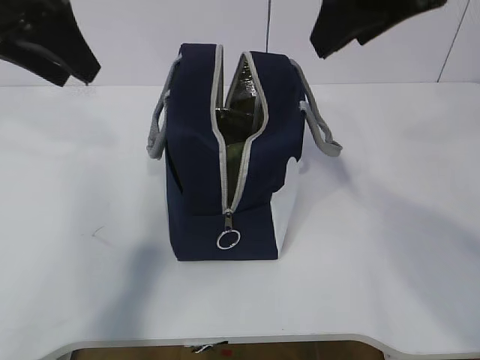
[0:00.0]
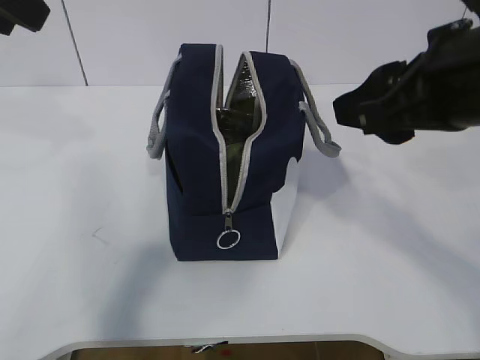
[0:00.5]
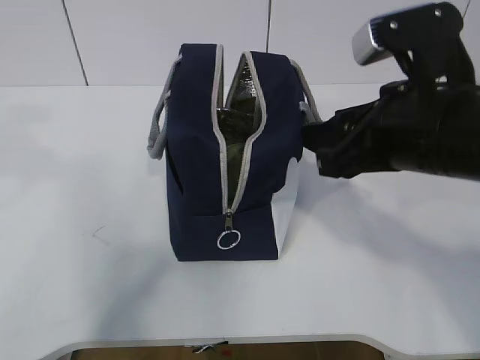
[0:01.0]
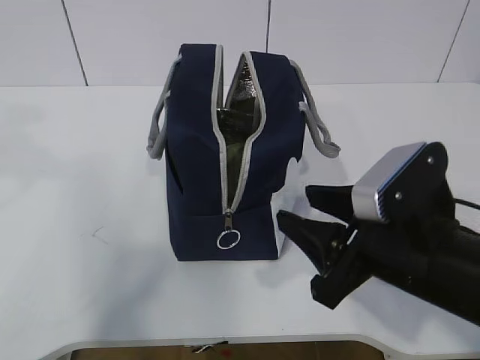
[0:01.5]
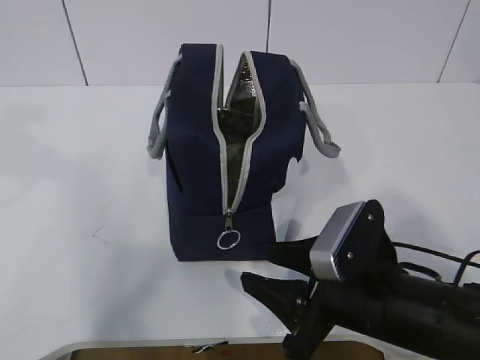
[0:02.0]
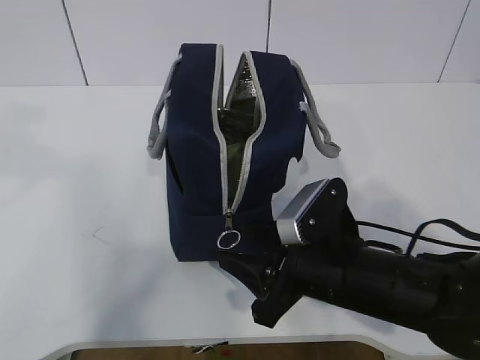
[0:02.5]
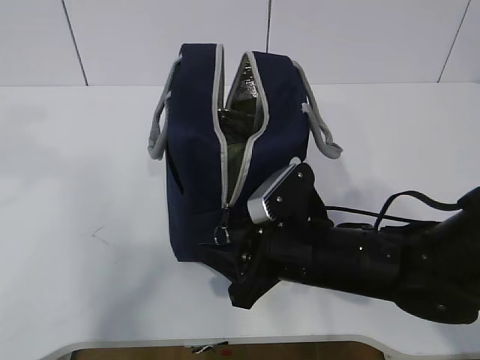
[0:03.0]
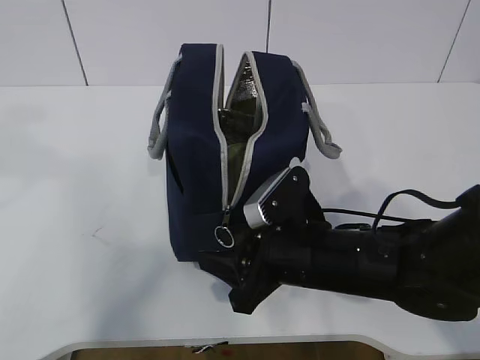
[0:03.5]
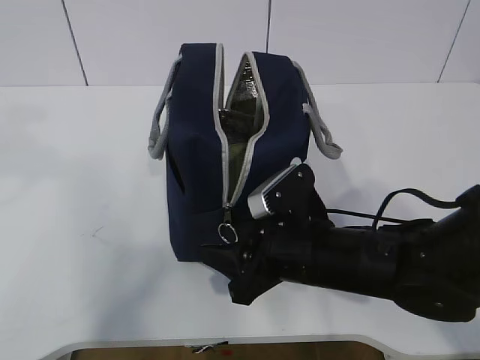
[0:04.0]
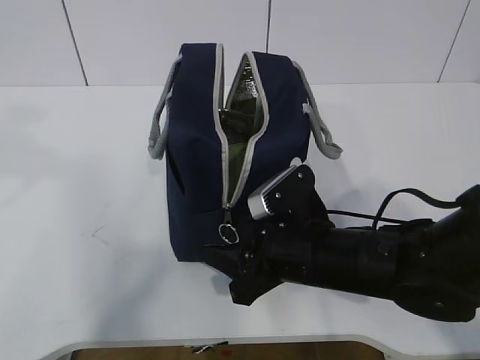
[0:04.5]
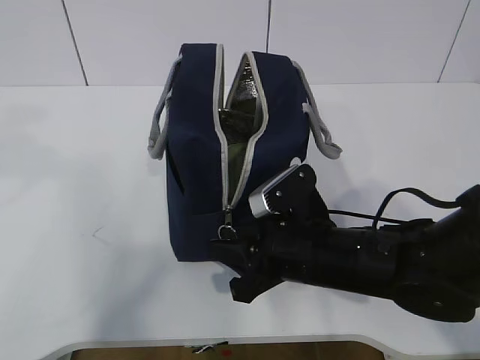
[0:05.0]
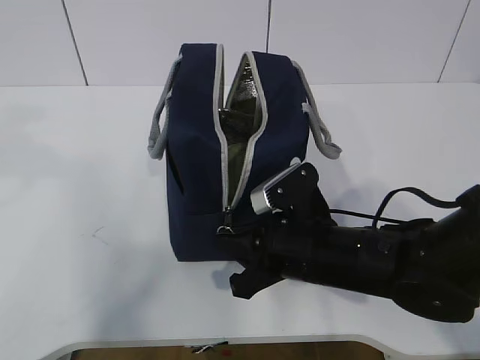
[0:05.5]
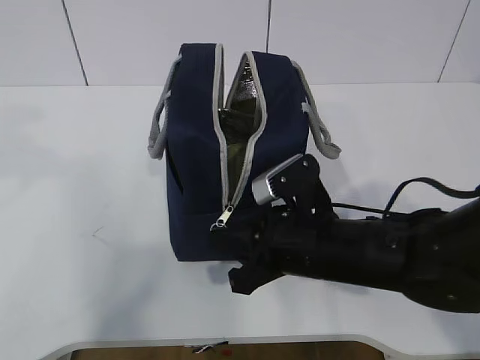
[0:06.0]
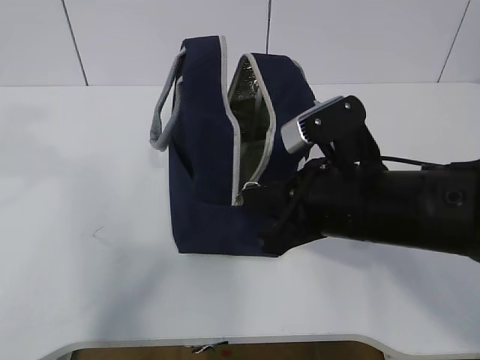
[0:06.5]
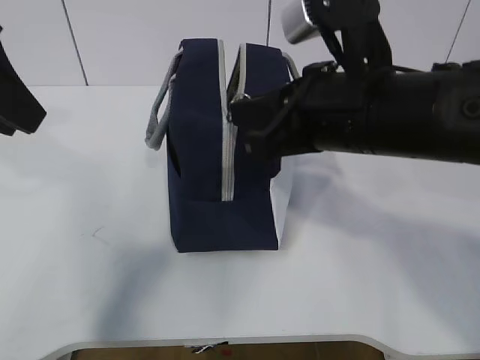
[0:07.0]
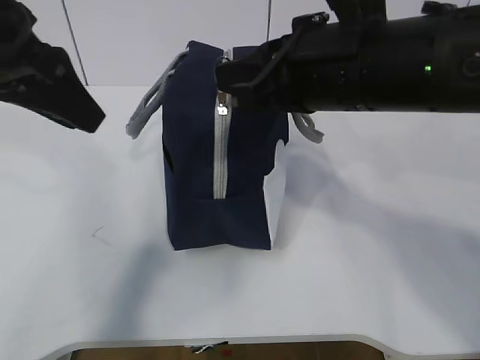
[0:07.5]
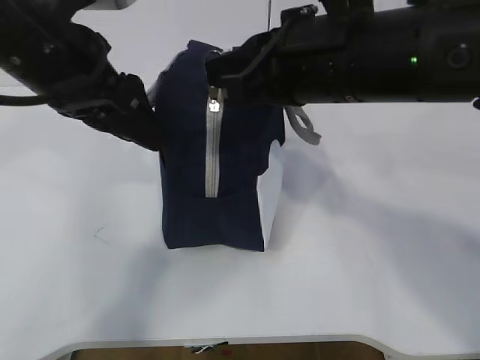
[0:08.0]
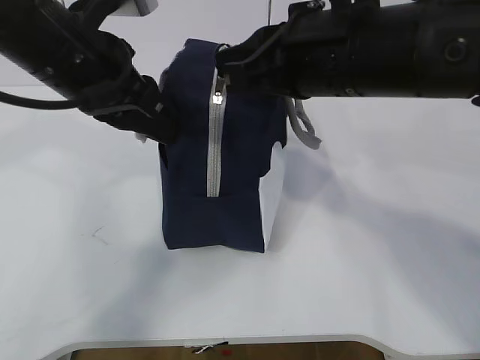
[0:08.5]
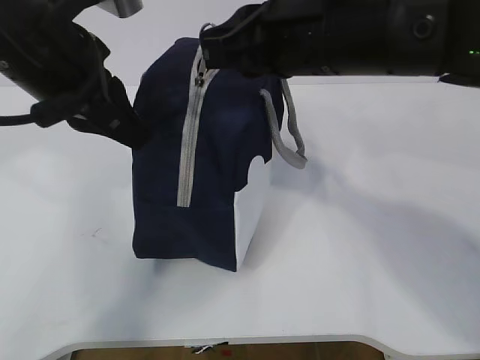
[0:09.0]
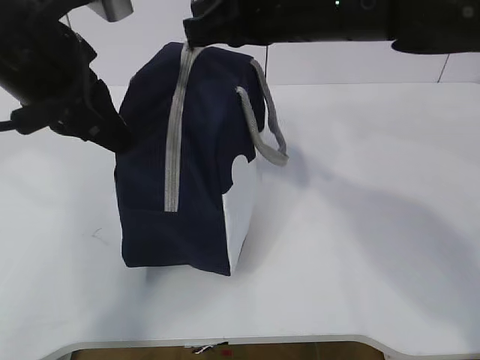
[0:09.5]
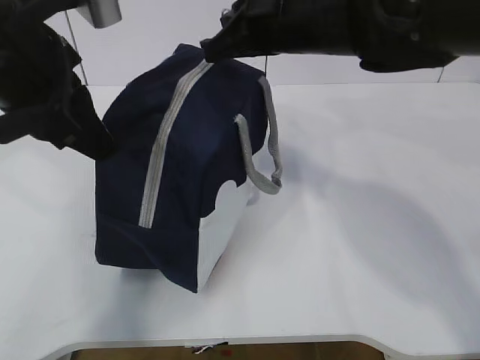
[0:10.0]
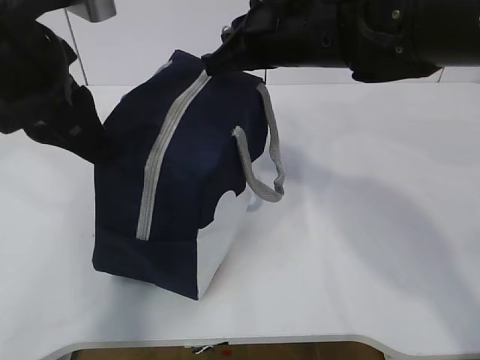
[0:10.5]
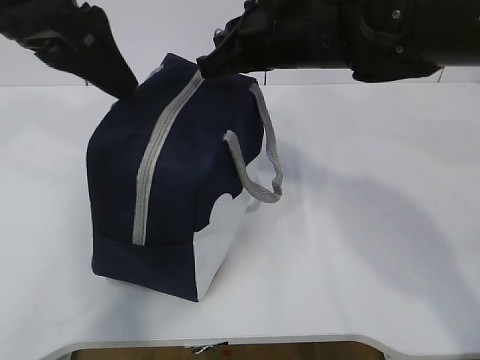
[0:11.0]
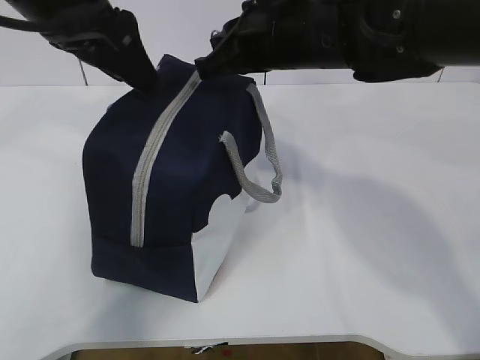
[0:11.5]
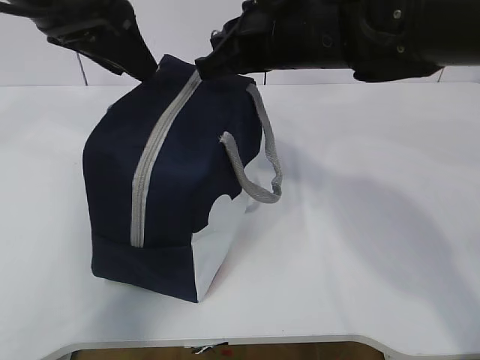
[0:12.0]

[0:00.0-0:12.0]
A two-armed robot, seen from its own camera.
Step, 0:01.0 to 0:05.5: Pull the zipper with your right hand.
Step, 0:06.0 to 0:07.5: Grab the lunch bag with your left hand.
0:00.0 to 0:02.0: The right gripper shifts approximately 30 cm downward, while the left gripper goes roughly 10 cm backward.
0:02.0 to 0:04.0: The right gripper moves forward, some 5 cm.
0:04.0 to 0:06.0: The right gripper closes up.
0:06.0 to 0:08.0: The left gripper shifts some 15 cm downward, forward and to the right. Meanwhile the right gripper shifts about 20 cm upward.
0:08.0 to 0:10.0: The right gripper heads forward, covering approximately 10 cm, while the left gripper closes its fingers.
0:10.0 to 0:12.0: The left gripper shifts approximately 5 cm forward, and opens.

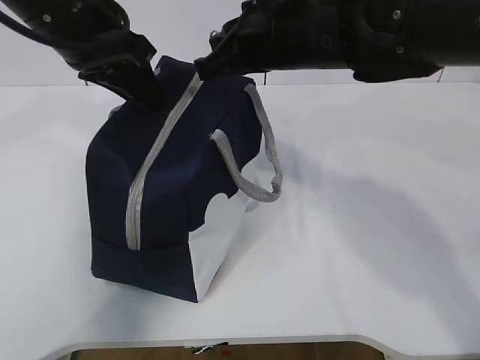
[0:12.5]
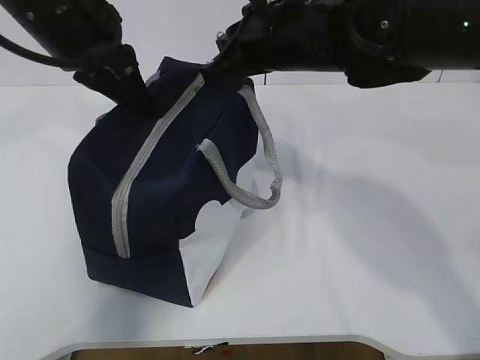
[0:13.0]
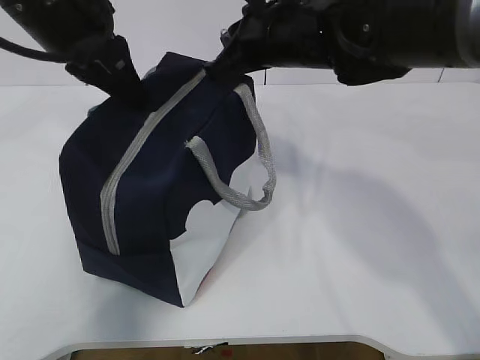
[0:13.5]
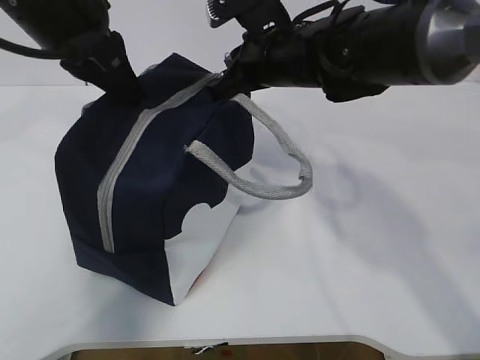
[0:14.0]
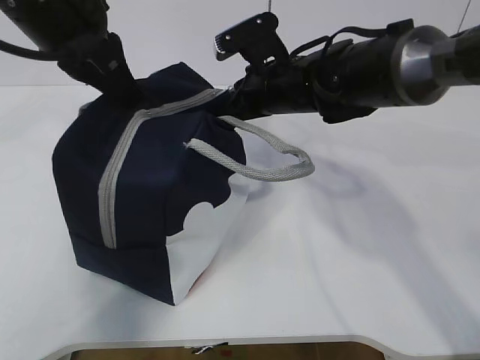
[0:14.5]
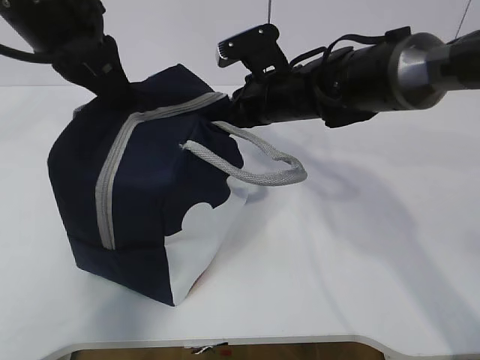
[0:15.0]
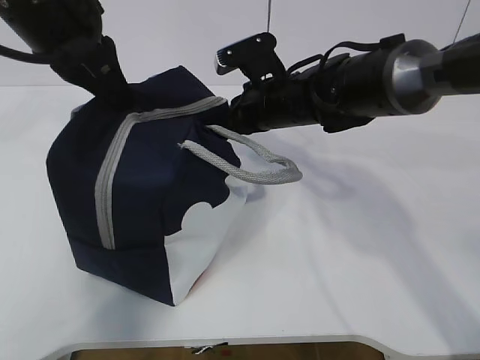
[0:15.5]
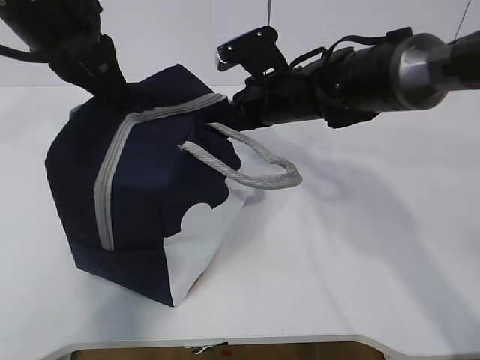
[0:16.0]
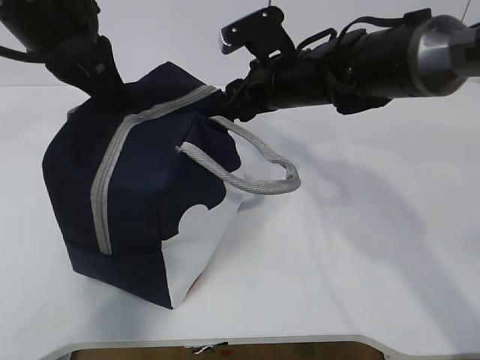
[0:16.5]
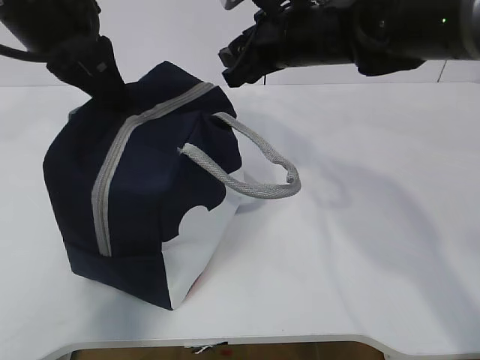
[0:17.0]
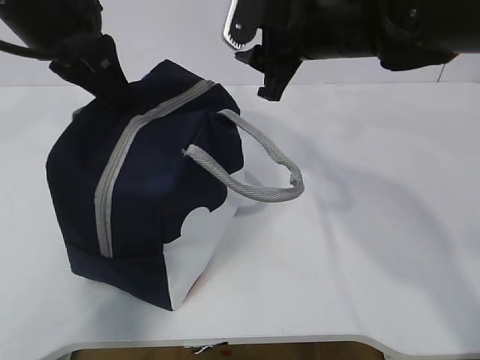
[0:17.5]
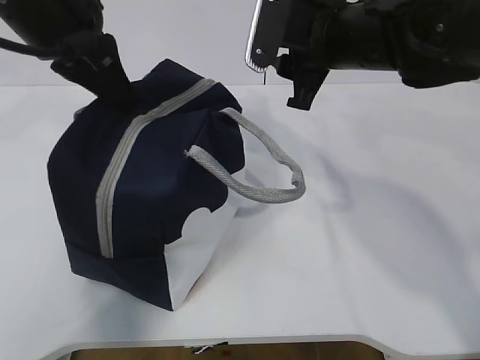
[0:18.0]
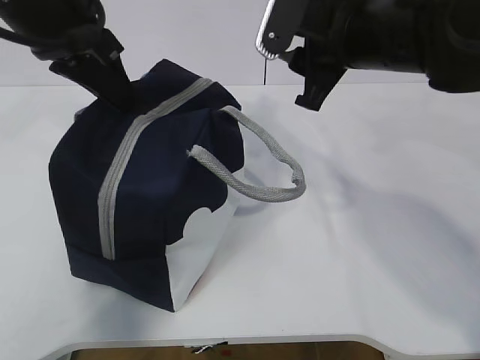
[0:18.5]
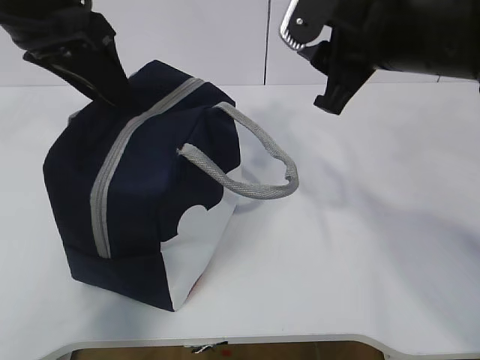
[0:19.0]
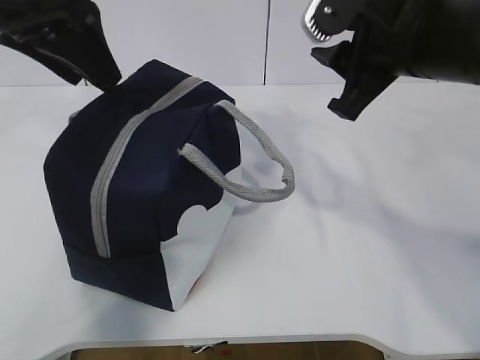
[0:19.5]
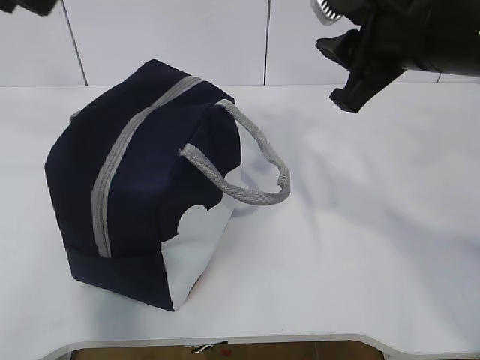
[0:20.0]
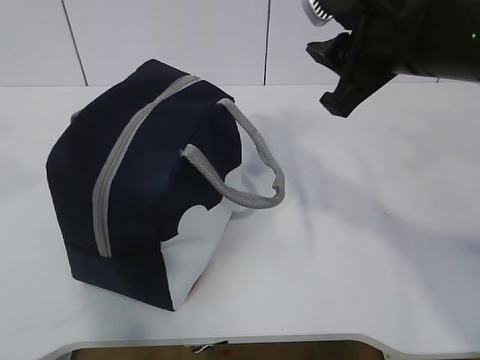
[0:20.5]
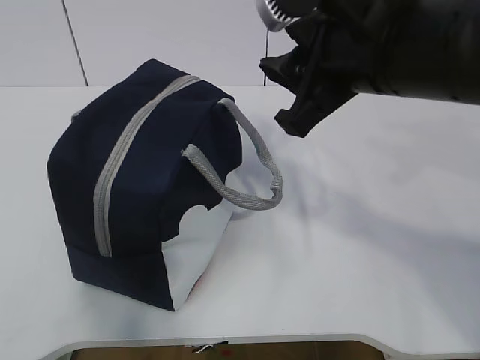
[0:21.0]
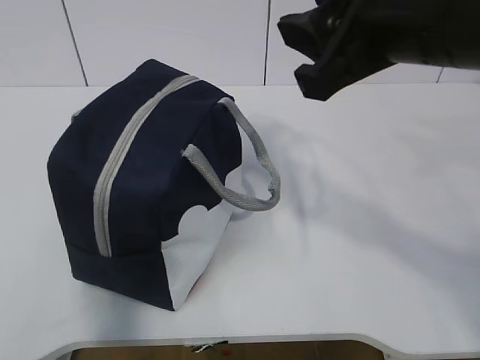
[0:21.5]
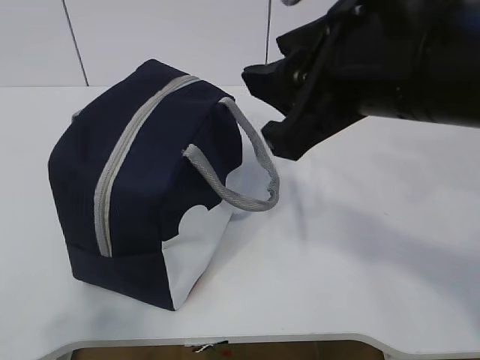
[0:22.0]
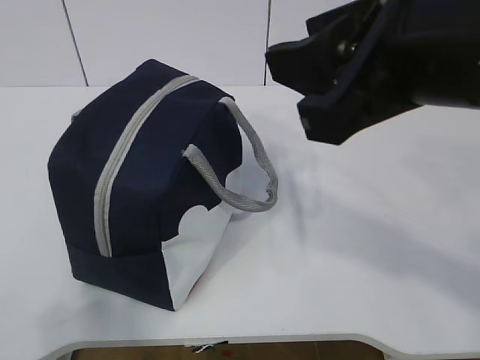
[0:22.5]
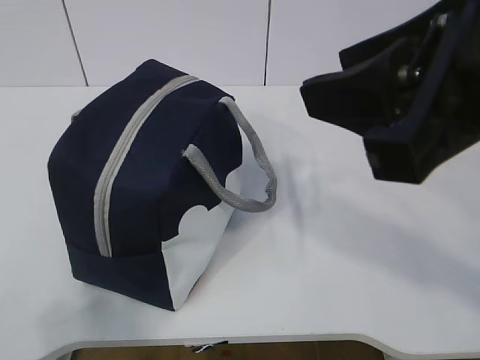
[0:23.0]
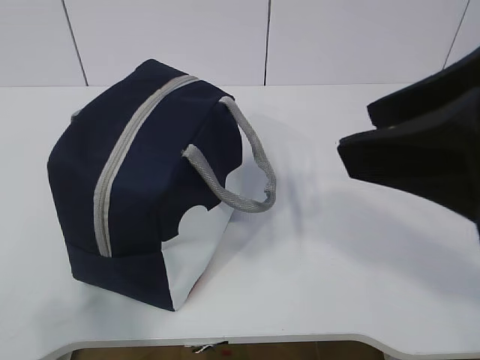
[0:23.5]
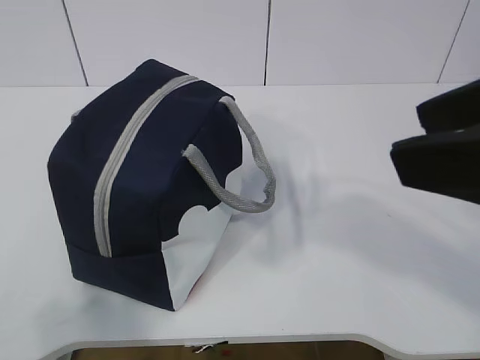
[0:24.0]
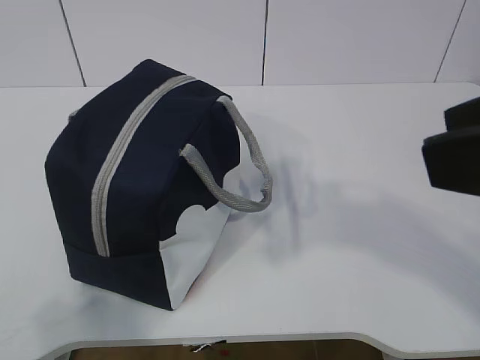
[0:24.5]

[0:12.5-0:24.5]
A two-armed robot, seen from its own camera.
0:12.5 to 0:14.5: The right gripper goes roughly 10 cm downward and forward. Meanwhile the left gripper closes.
0:14.5 to 0:16.5: The right gripper opens.
0:16.5 to 0:18.5: The right gripper shifts about 10 cm upward and backward.
0:18.5 to 0:20.5: The left gripper travels backward, upward and to the left by some 25 cm, and opens up, while the right gripper moves backward, roughly 5 cm.
0:20.5 to 0:22.5: The right gripper moves backward, some 10 cm. Meanwhile the left gripper travels downward, backward and to the left by approximately 25 cm.
0:22.5 to 0:24.5: The right gripper shifts approximately 10 cm backward and to the right.

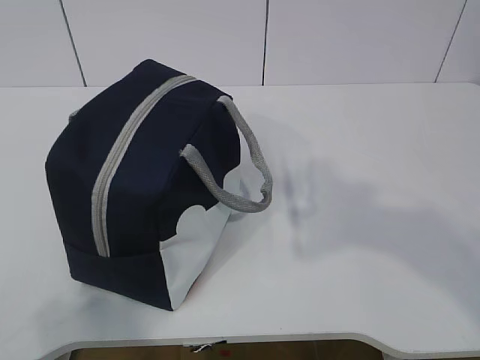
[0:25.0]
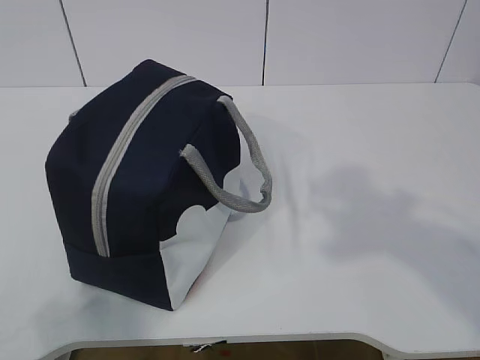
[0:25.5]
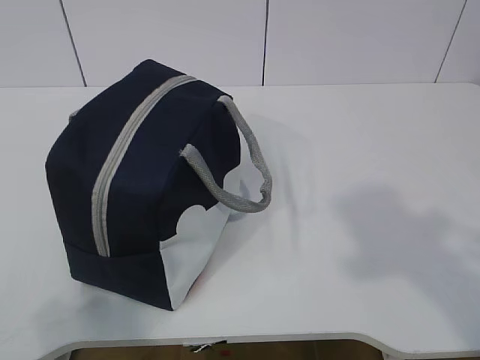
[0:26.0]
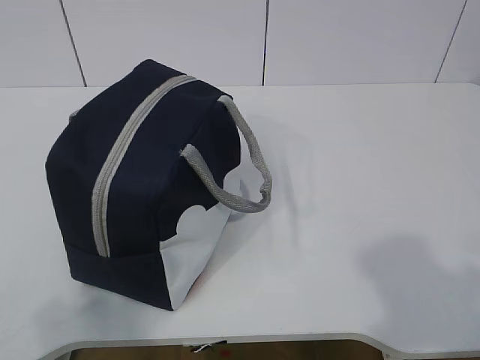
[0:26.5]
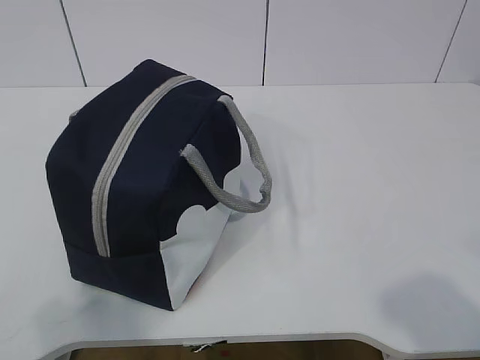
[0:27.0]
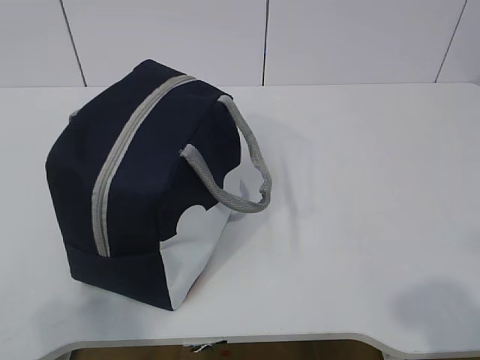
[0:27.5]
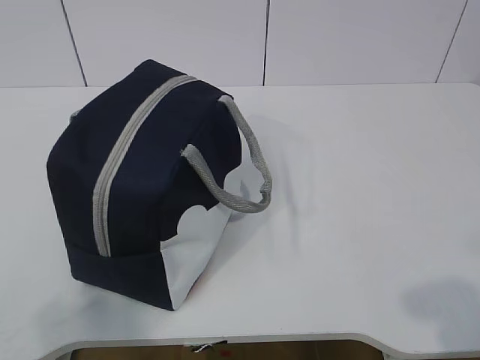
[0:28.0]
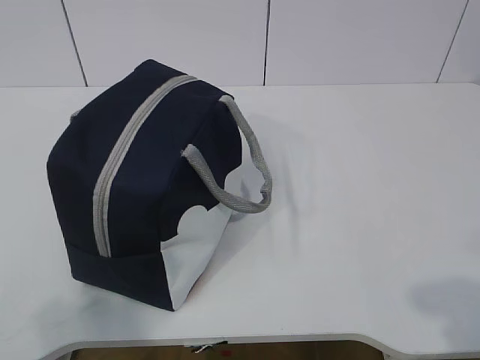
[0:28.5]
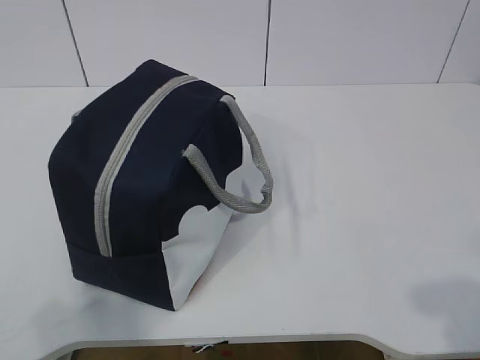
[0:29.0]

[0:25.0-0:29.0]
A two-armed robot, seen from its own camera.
0:25.0 to 0:27.0: The right gripper moves backward and downward, some 15 cm.
0:27.0 to 0:29.0: The right gripper changes place by approximately 5 cm.
